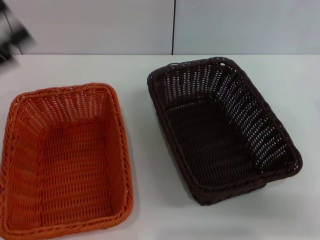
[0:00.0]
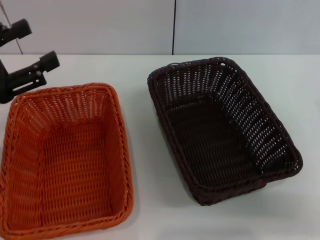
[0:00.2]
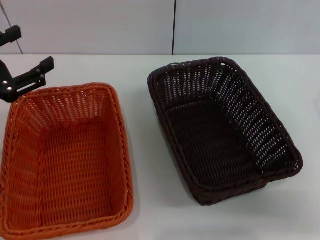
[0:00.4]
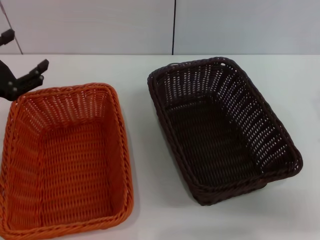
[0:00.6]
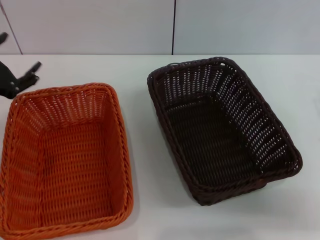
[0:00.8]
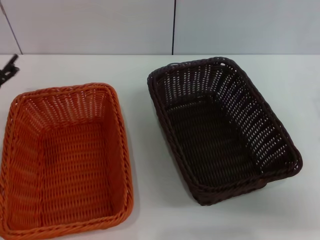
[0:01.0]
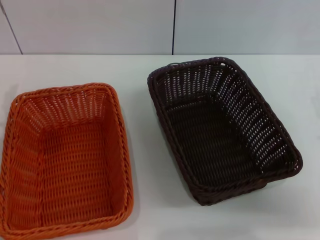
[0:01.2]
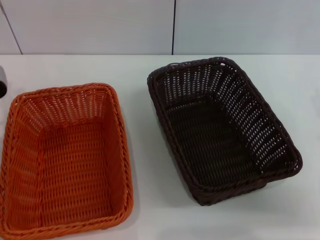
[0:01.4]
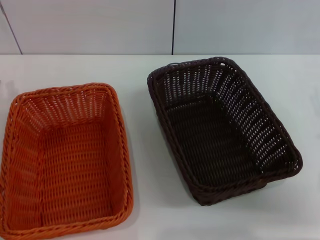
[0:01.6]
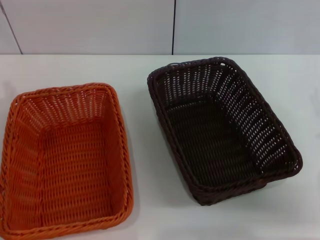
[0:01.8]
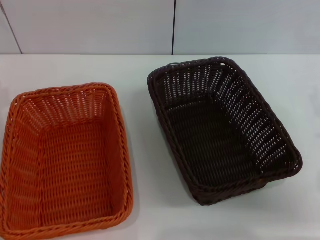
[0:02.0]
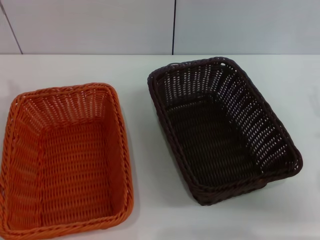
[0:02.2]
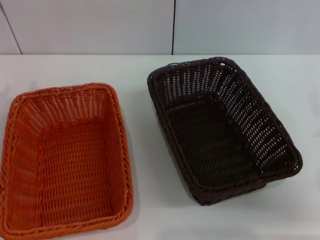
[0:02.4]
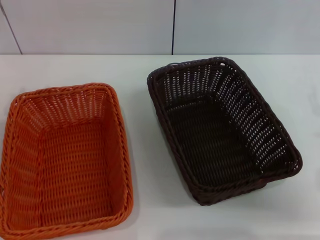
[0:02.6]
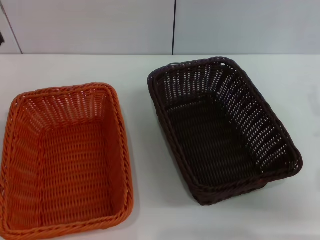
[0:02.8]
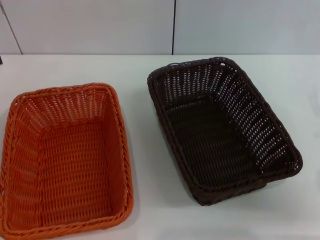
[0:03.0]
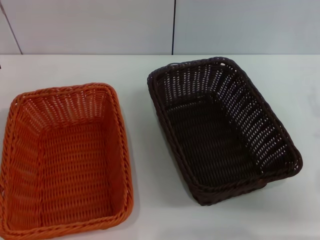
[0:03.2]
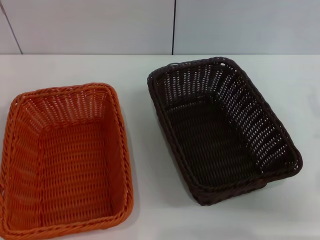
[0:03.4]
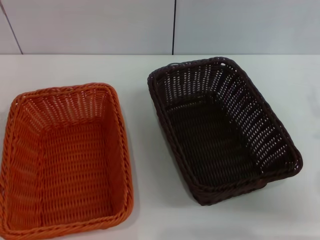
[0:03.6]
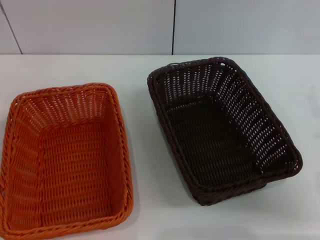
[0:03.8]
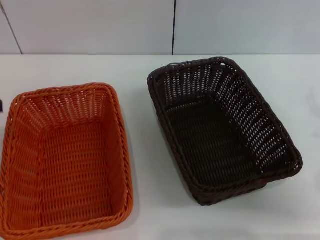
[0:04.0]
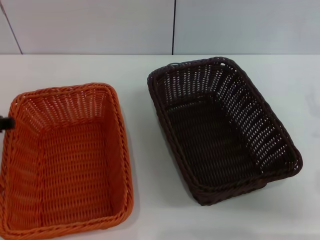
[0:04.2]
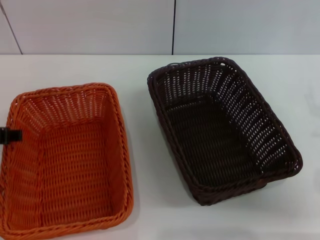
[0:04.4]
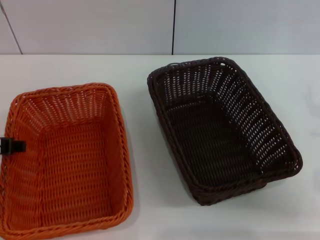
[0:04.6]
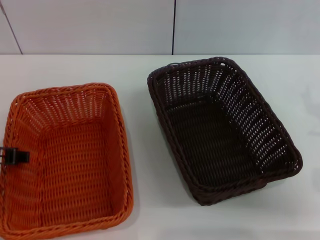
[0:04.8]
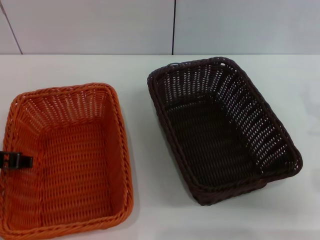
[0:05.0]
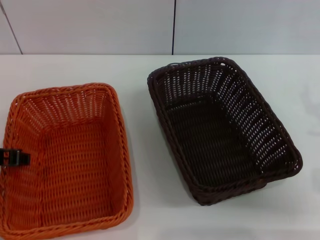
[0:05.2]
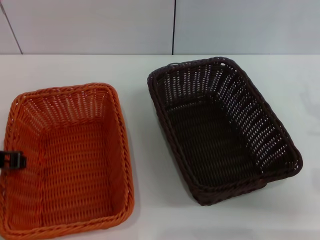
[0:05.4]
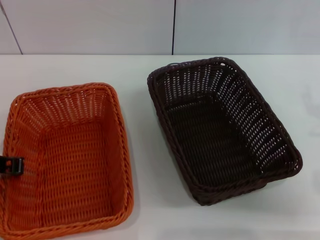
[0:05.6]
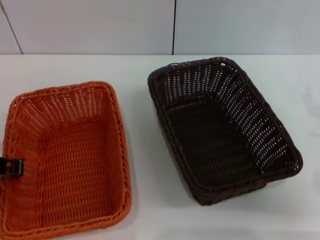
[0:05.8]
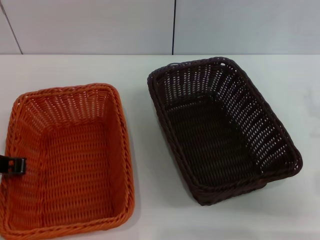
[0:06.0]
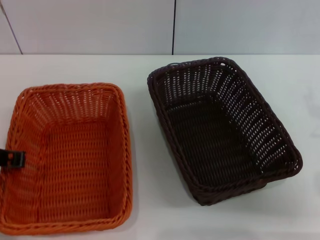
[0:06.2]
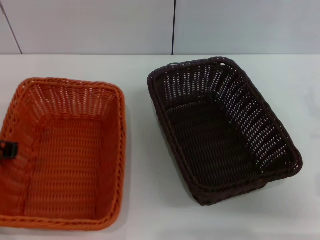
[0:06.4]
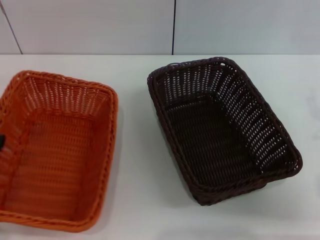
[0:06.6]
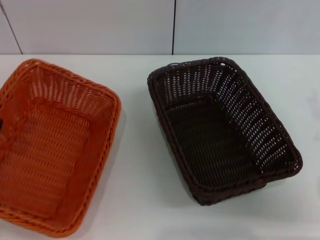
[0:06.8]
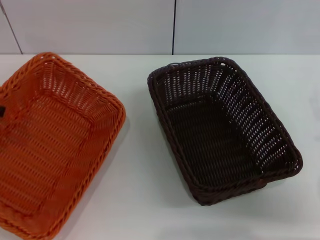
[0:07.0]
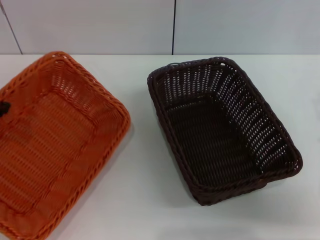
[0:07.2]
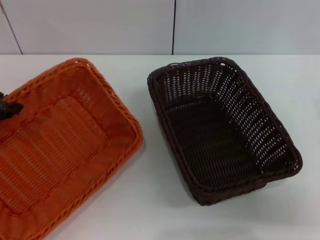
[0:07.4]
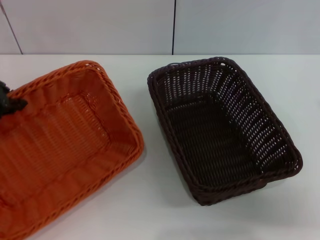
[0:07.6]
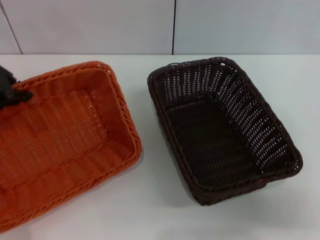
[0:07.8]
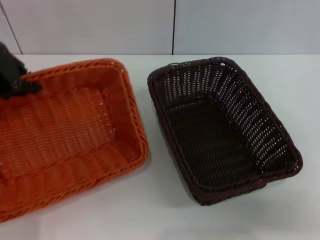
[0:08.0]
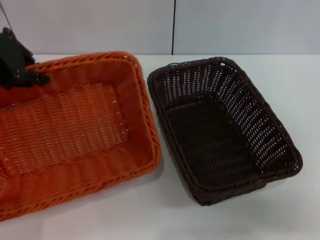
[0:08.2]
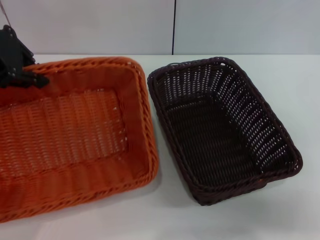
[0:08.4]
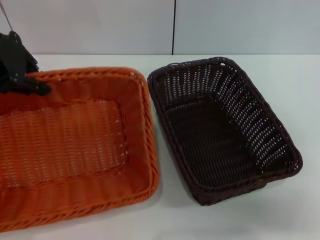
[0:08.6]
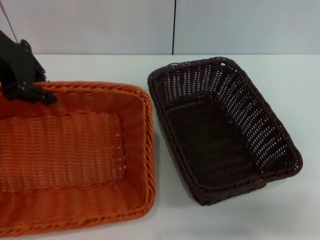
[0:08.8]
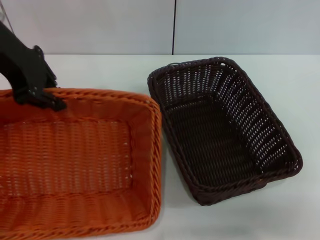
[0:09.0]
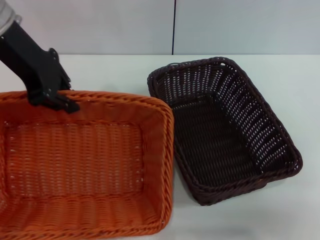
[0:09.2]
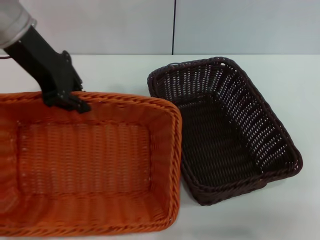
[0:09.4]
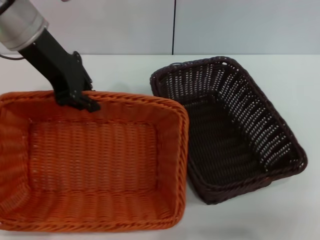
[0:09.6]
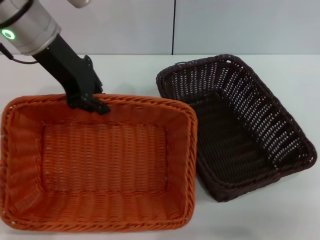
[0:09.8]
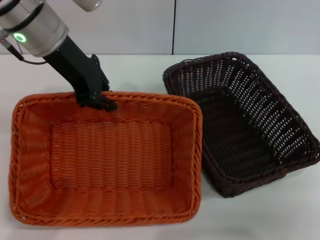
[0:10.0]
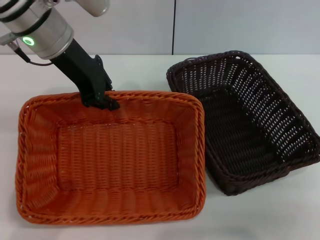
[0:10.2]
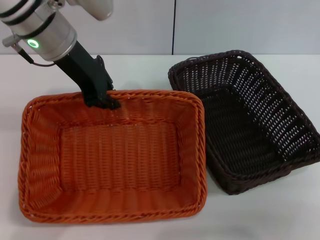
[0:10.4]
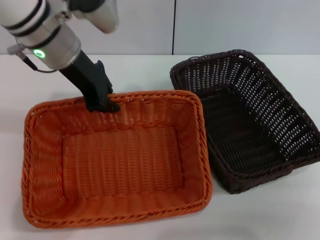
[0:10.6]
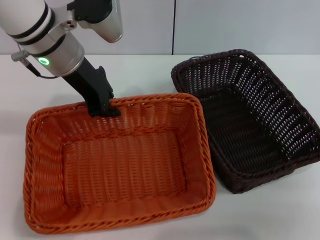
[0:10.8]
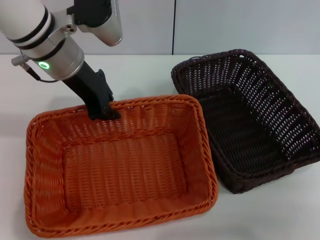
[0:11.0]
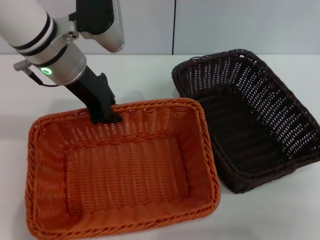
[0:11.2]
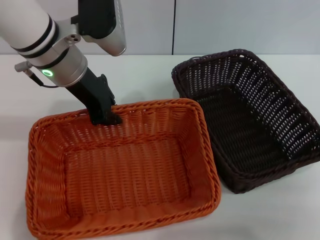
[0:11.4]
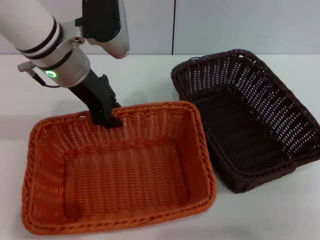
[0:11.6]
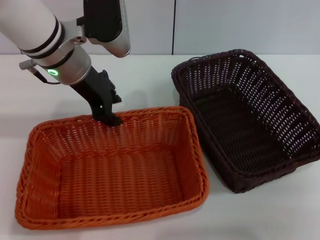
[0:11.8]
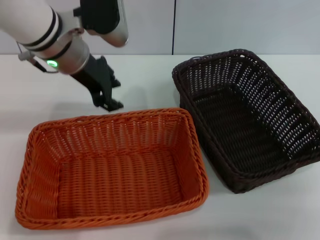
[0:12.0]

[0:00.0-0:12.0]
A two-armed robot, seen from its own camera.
Step, 0:00.0 to 0:06.2: Pick up the light basket with the left gripper.
Step, 0:06.6 to 0:11.8: Place the light basket in the center of view with the left gripper.
0:00.0 to 0:01.6: The left gripper travels forward by about 5 cm.
0:04.4 to 0:06.0: The left gripper closes up.
0:06.0 to 0:07.6: The left gripper moves upward and forward, about 10 cm.
0:07.6 to 0:09.0: The left gripper travels to the right and upward by about 10 cm.
0:09.0 to 0:10.4: The left gripper shifts approximately 10 cm to the right and downward.
0:10.4 to 0:12.0: The left gripper opens up.

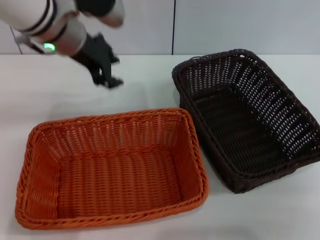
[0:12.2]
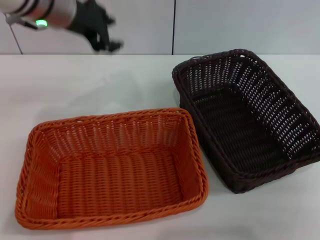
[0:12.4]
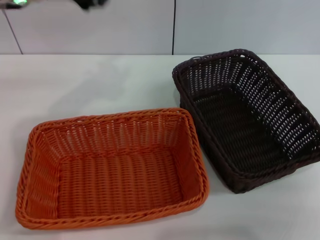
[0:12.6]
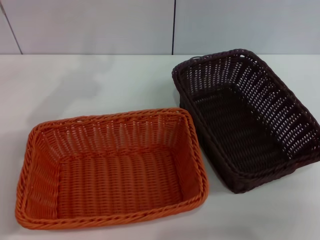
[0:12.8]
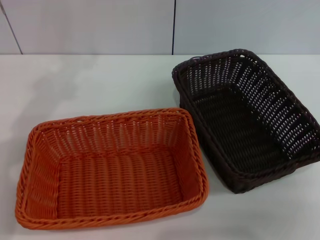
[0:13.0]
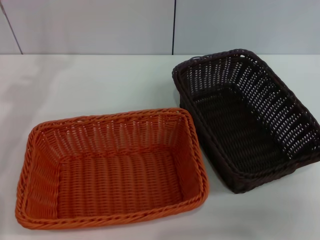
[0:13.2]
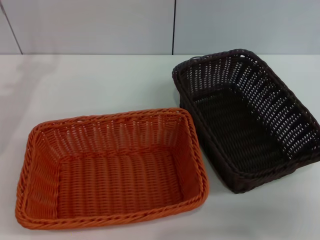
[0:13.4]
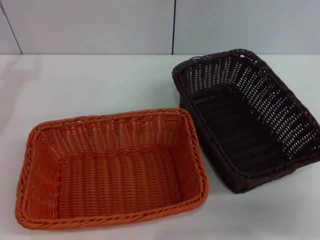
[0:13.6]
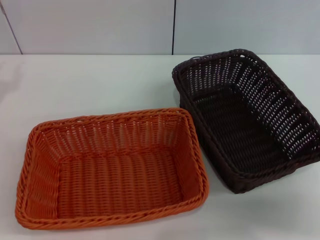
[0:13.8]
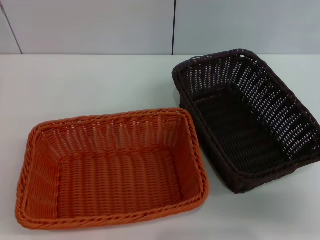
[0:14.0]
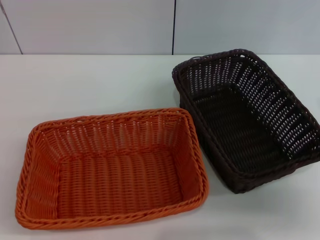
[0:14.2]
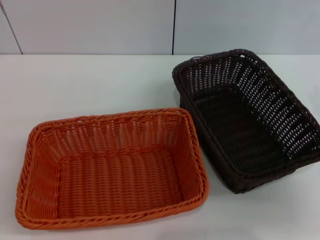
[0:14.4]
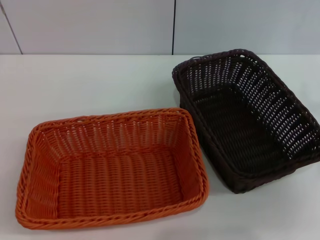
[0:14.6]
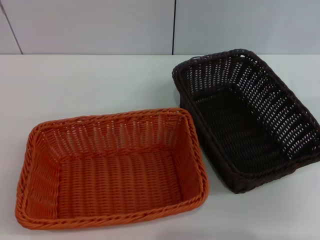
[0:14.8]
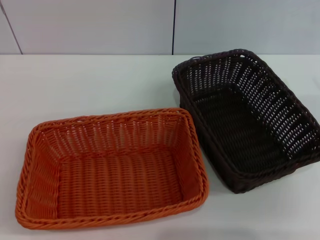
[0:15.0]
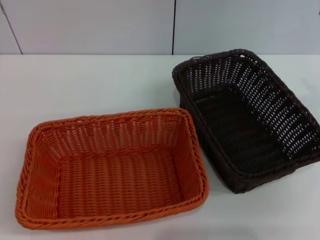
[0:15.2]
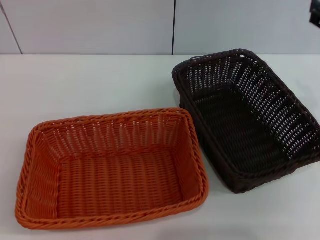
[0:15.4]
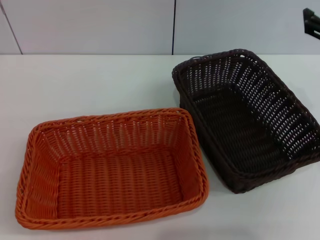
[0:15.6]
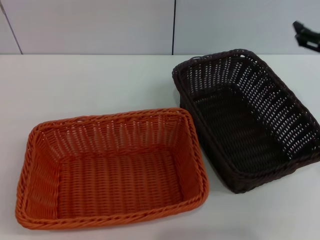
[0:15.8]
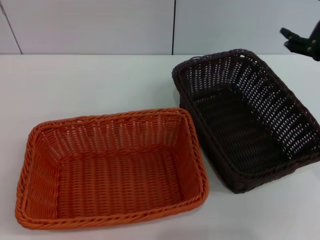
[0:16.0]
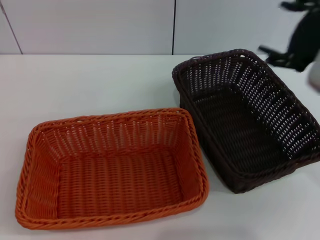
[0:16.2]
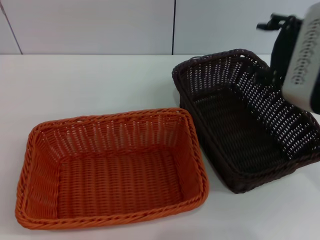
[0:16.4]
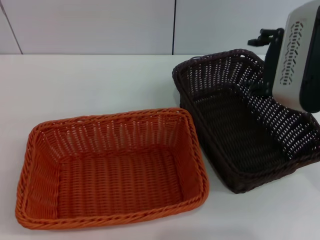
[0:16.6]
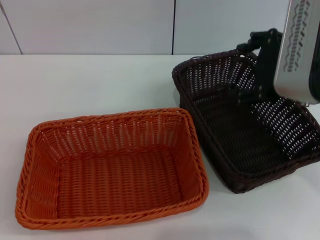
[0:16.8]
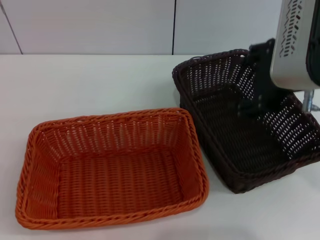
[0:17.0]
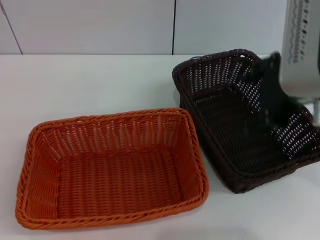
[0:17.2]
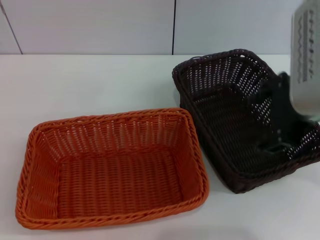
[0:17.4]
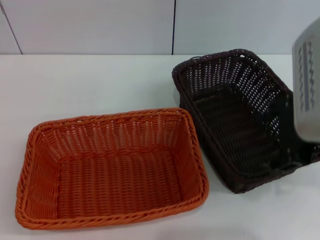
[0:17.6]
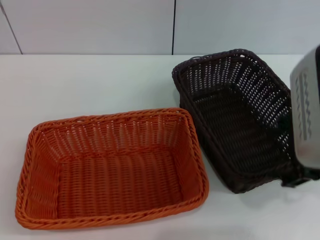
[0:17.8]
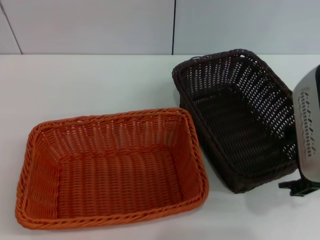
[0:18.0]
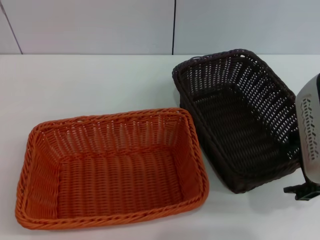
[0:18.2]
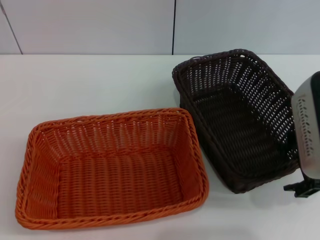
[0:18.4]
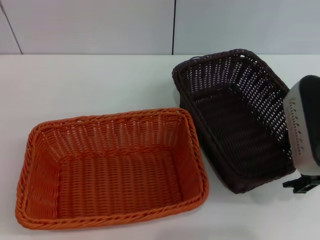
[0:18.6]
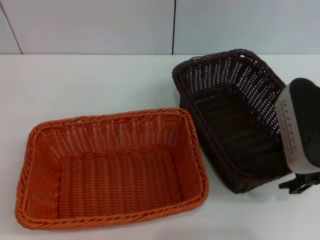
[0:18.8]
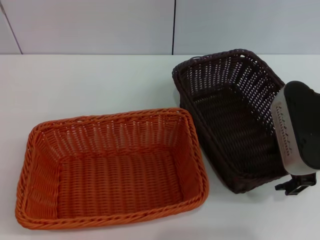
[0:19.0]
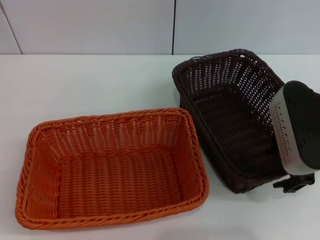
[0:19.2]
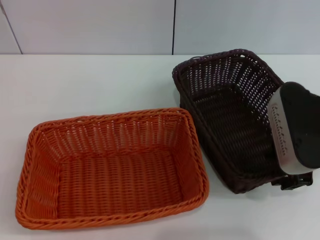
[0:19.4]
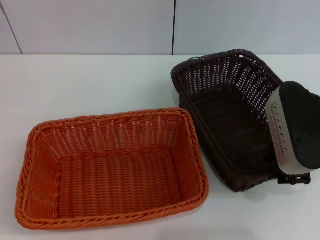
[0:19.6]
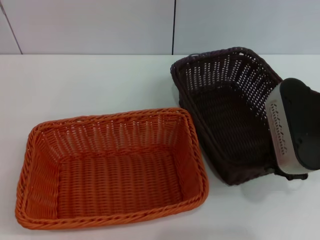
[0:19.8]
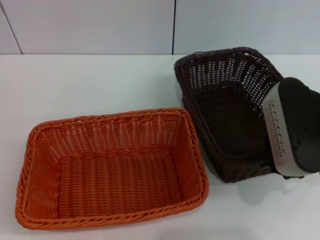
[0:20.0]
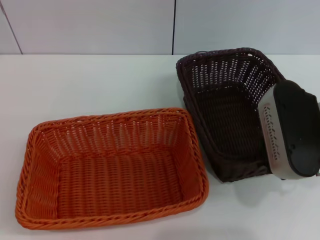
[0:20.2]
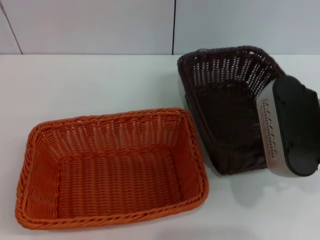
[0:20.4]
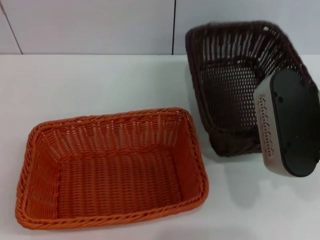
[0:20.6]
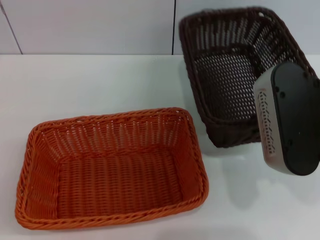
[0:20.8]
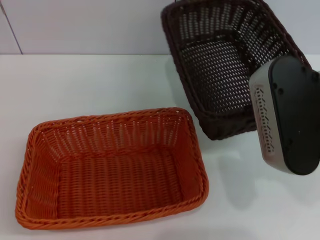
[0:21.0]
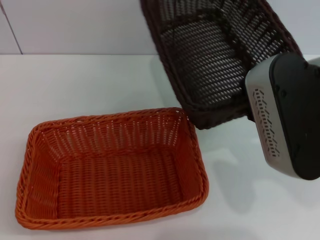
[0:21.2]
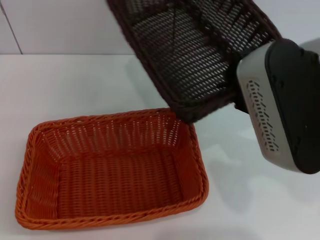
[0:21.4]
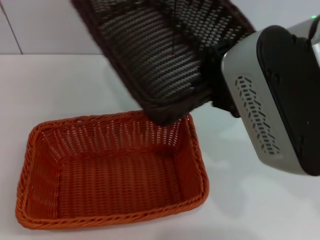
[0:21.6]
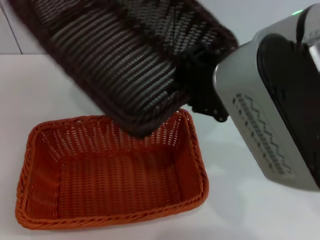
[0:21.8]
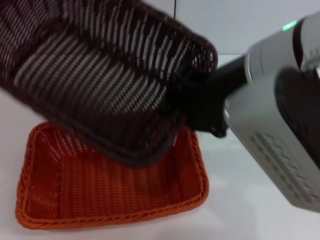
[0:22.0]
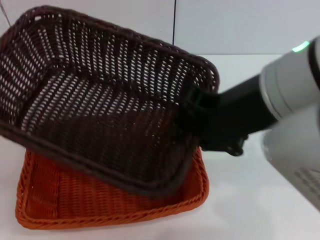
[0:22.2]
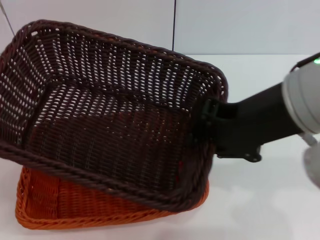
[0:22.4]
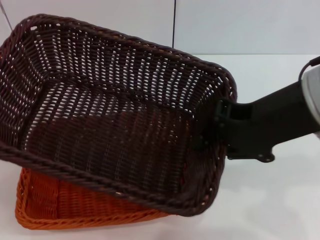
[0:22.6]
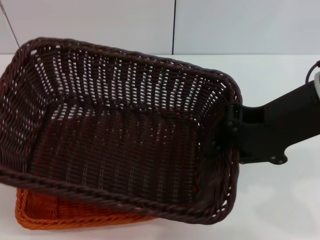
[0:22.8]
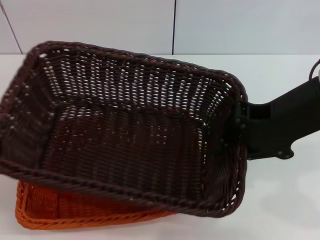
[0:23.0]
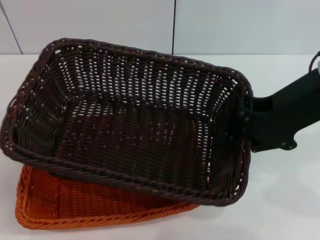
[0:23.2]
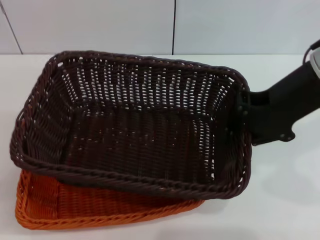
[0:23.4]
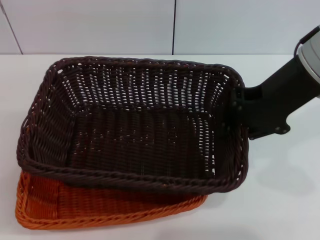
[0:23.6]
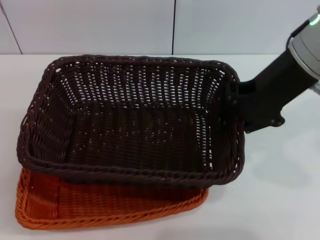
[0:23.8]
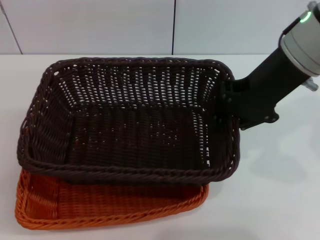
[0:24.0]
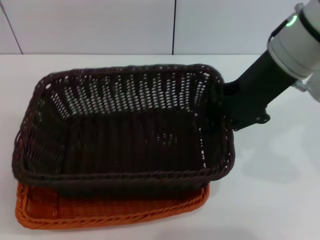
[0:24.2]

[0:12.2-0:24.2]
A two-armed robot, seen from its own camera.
Step, 0:12.2 to 0:20.2: Pick up the dark basket with the right gripper.
0:12.2 to 0:13.8: The left gripper goes roughly 25 cm to the left and backward.
0:13.8 to 0:15.2: The right gripper heads upward, covering about 10 cm.
0:15.2 to 0:16.6: The right gripper heads to the left, covering roughly 10 cm.
0:16.6 to 0:18.2: The right gripper shifts by approximately 5 cm.
0:18.2 to 0:19.8: The right gripper moves roughly 5 cm, and closes its fingers.
0:19.8 to 0:21.2: The right gripper goes some 10 cm upward.
0:22.6 to 0:24.2: The right gripper is displaced forward by approximately 10 cm.
